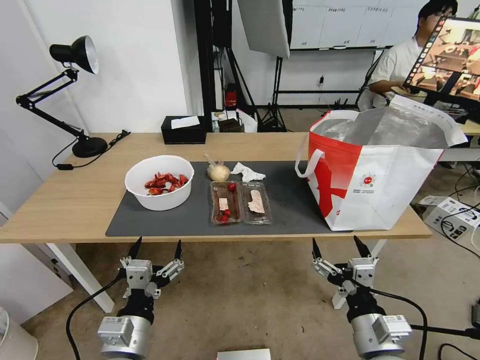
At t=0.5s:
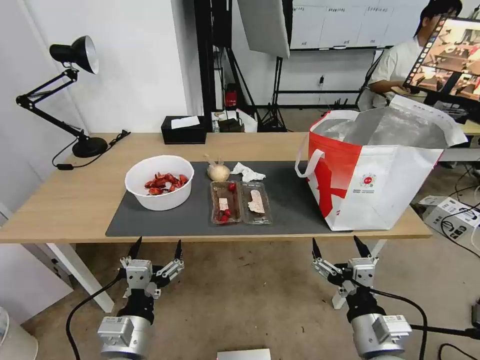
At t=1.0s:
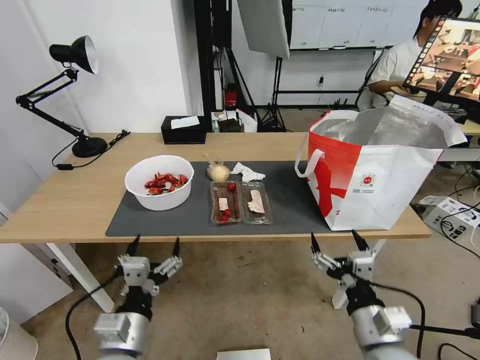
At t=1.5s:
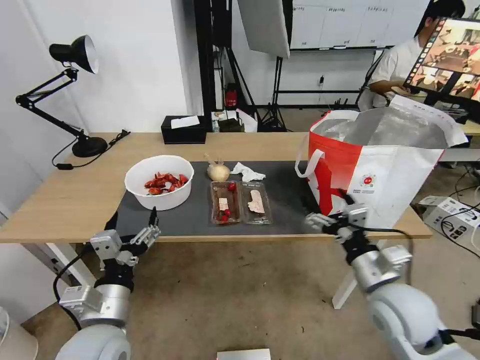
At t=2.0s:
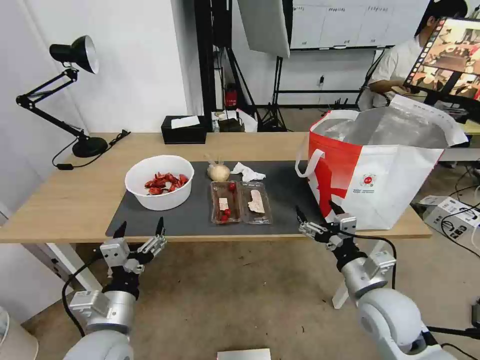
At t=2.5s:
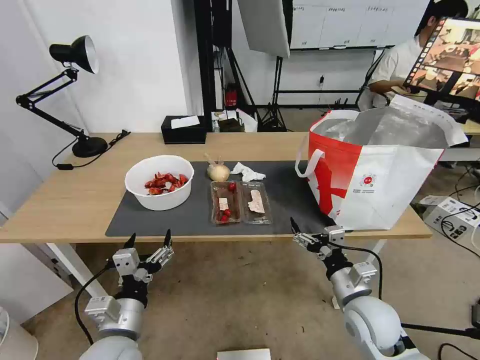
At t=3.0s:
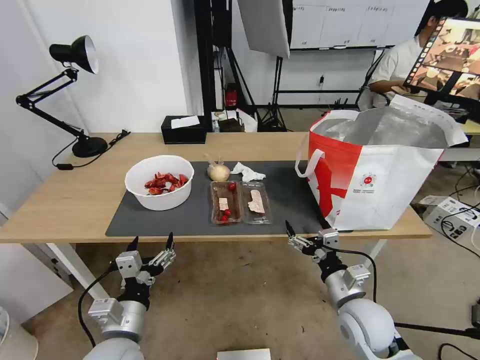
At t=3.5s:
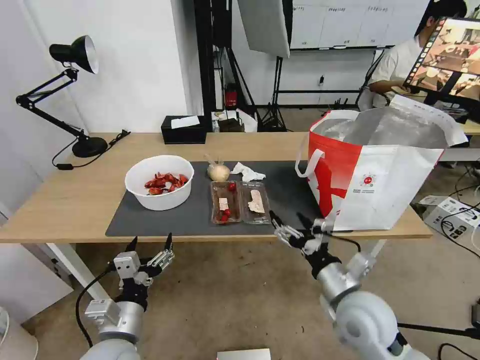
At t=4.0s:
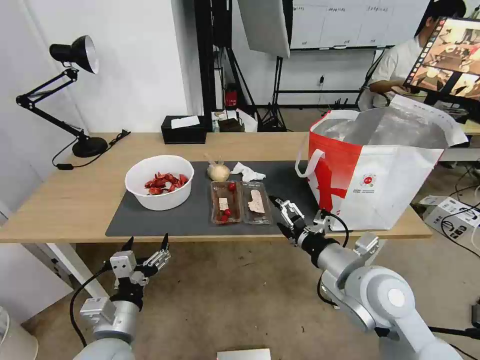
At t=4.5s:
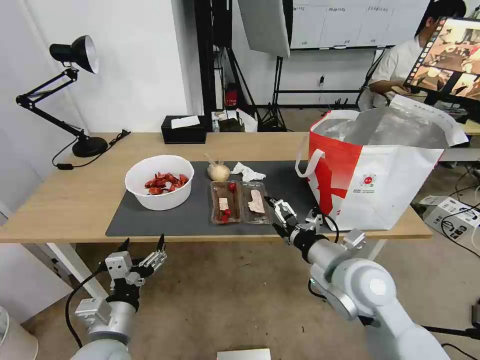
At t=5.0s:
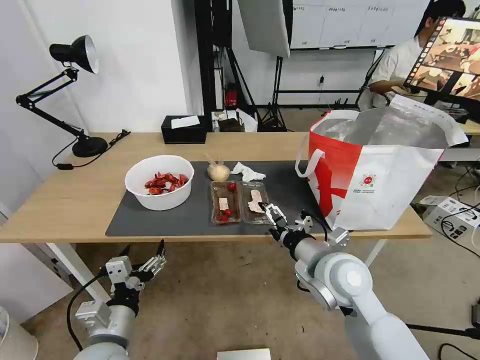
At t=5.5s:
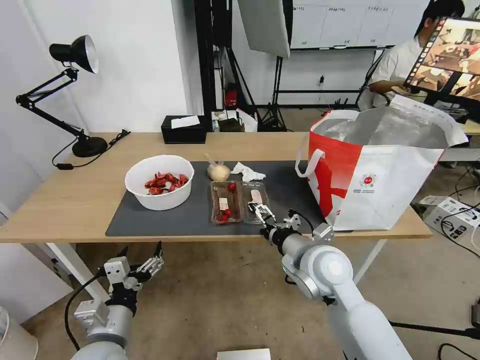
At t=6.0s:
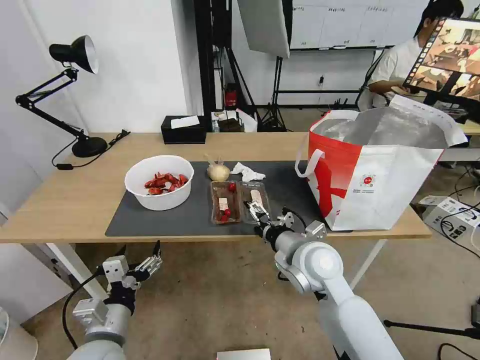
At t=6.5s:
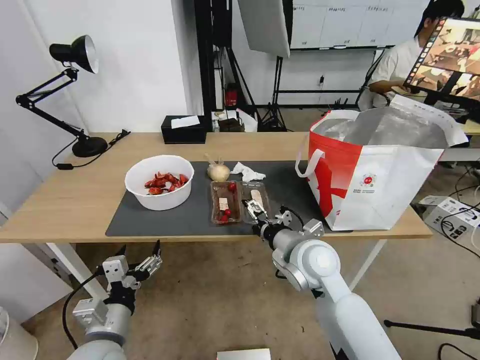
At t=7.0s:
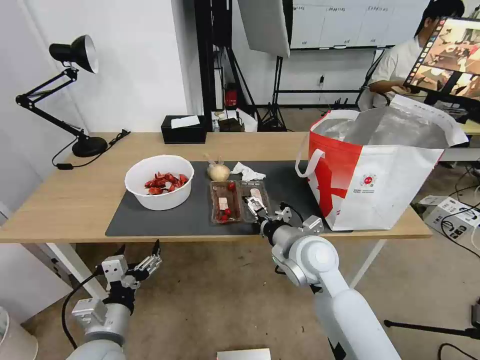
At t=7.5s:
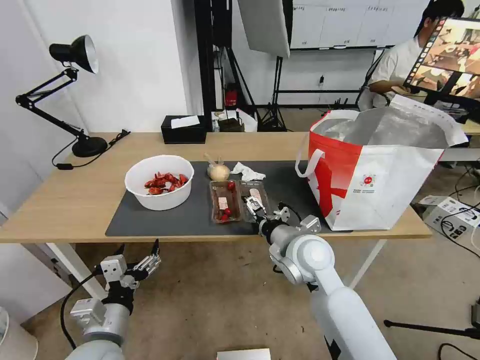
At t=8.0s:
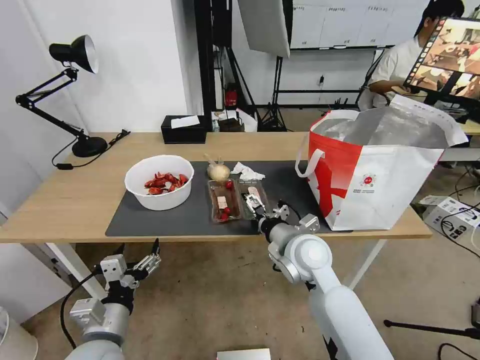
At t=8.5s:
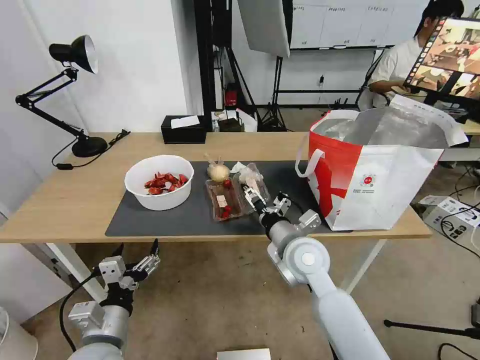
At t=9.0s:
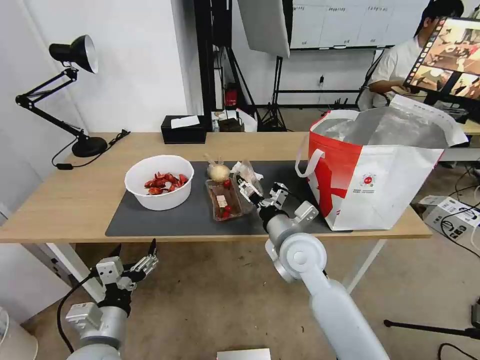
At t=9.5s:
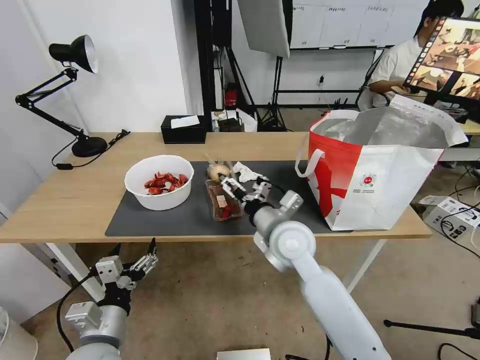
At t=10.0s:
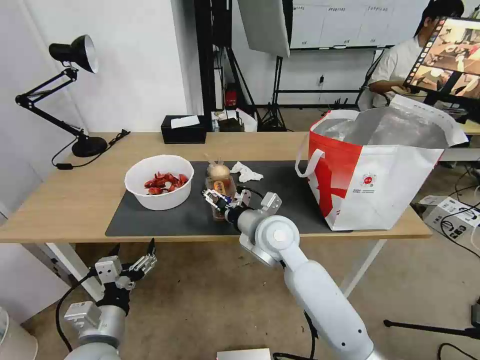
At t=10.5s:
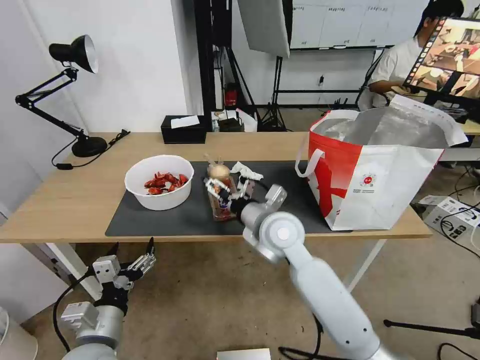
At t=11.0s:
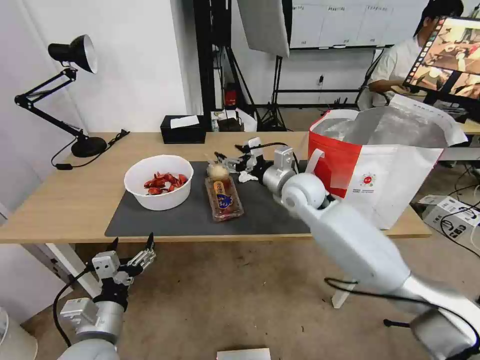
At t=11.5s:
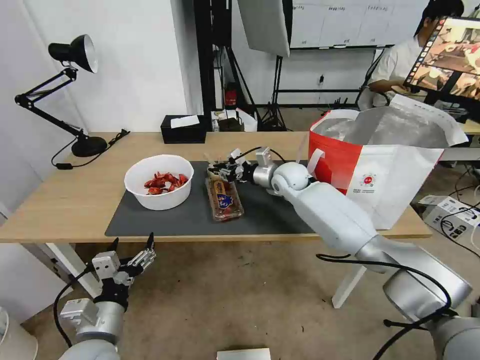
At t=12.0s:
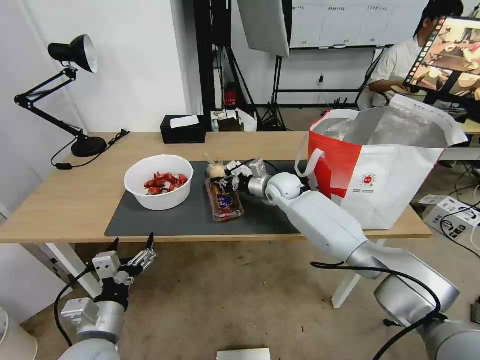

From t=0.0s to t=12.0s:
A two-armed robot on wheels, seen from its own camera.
Task of the whole recording: Pick up the trash from the table and place it into the takeout bag.
From t=2.0s to t=4.0s: The right gripper is displaced upward by approximately 10 cm.
From t=4.0s to t=6.0s: The right gripper travels to the left and forward by some 10 cm.
From t=6.0s to t=8.0s: There are only small adjustments of the grippers.
From t=8.0s to t=10.0s: The right gripper travels to the left by roughly 5 cm.
From t=10.0s to t=12.0s: The right gripper shifts about 20 cm forward, and closes up.

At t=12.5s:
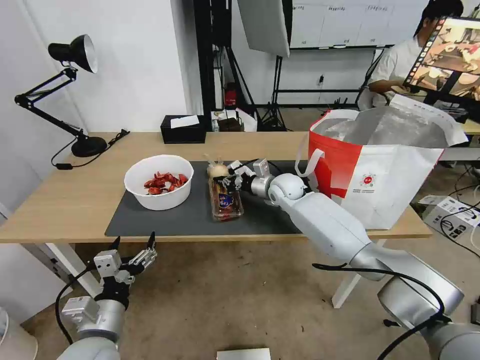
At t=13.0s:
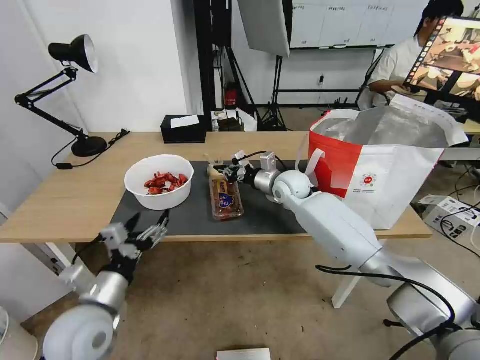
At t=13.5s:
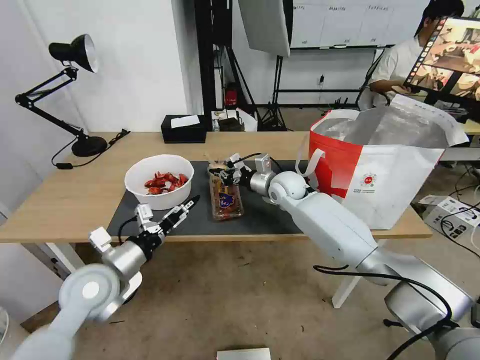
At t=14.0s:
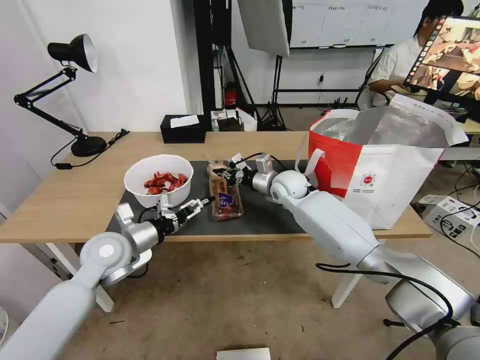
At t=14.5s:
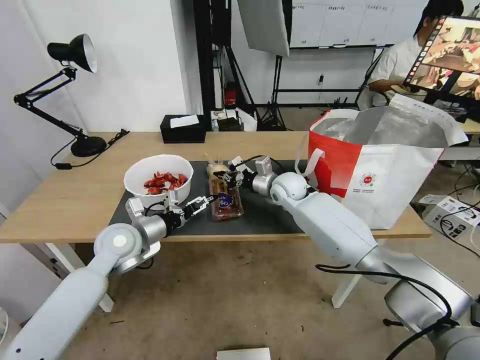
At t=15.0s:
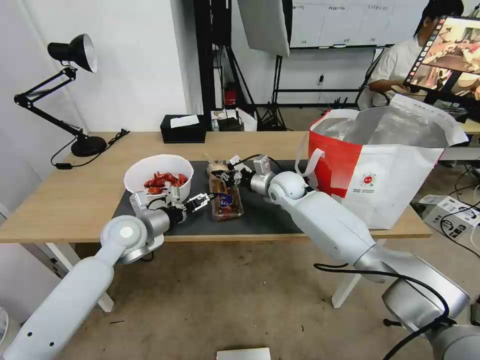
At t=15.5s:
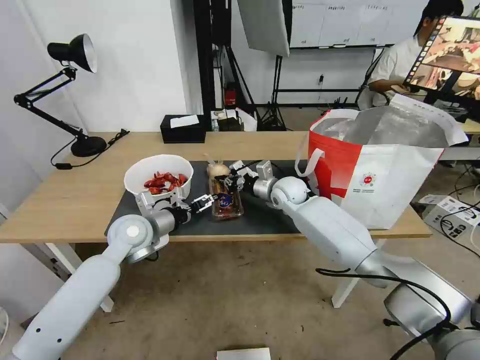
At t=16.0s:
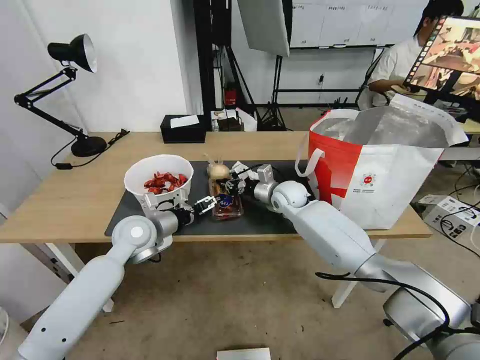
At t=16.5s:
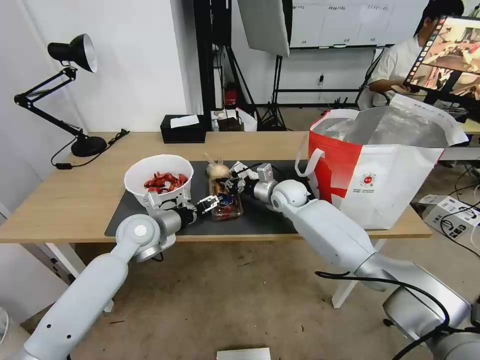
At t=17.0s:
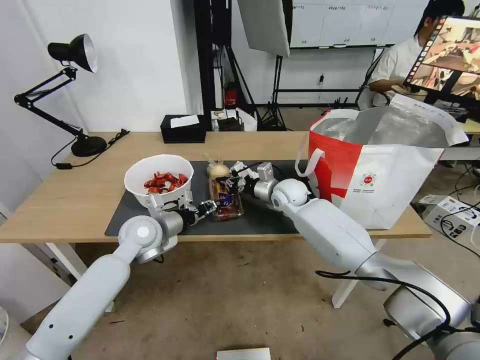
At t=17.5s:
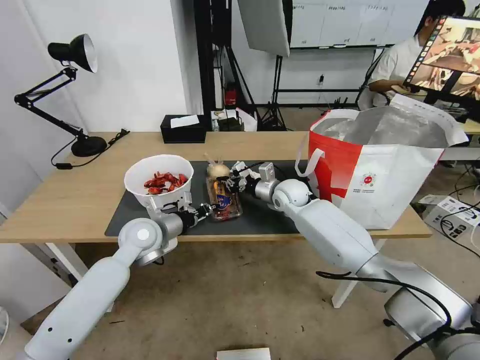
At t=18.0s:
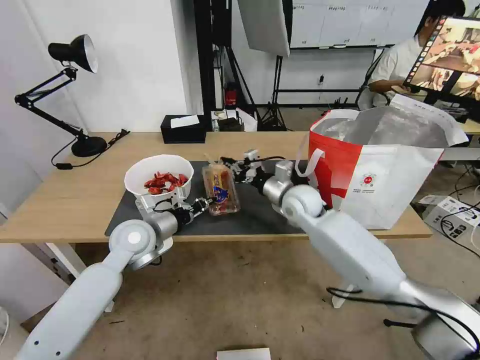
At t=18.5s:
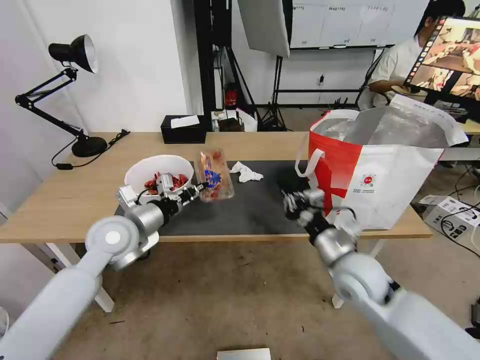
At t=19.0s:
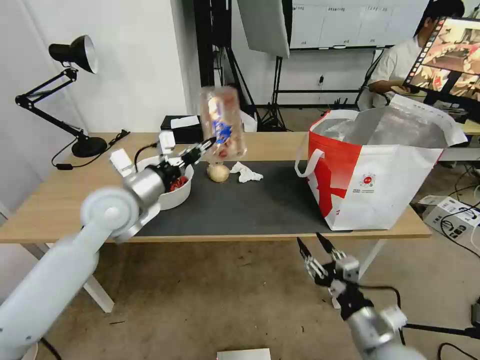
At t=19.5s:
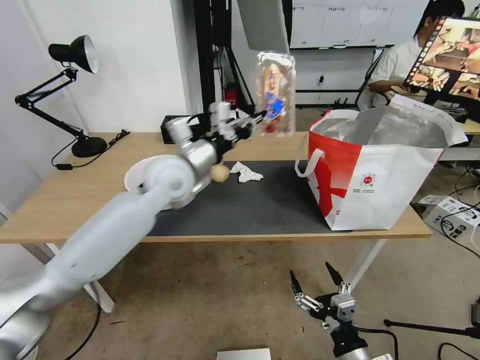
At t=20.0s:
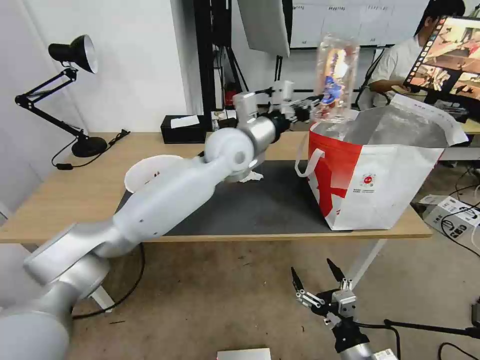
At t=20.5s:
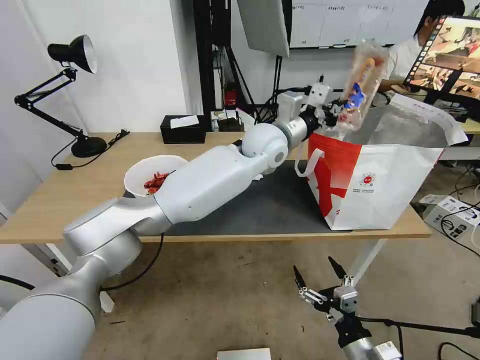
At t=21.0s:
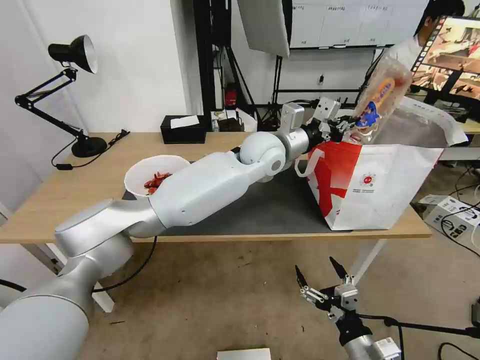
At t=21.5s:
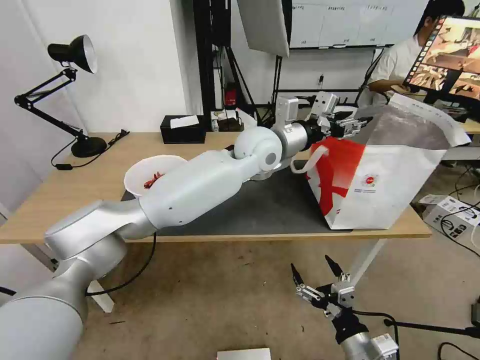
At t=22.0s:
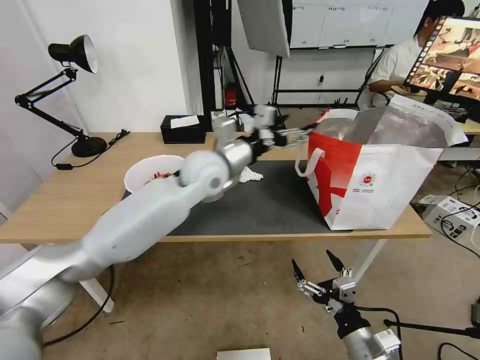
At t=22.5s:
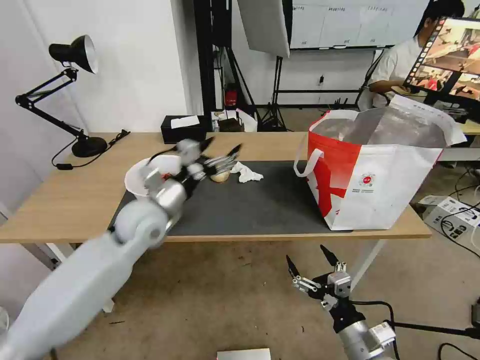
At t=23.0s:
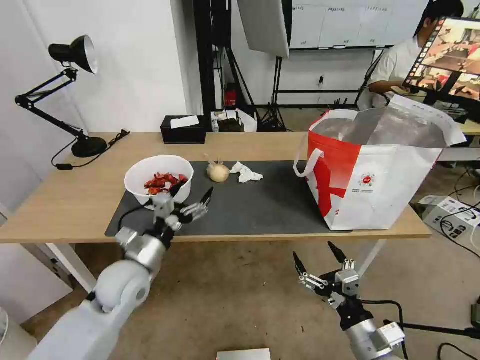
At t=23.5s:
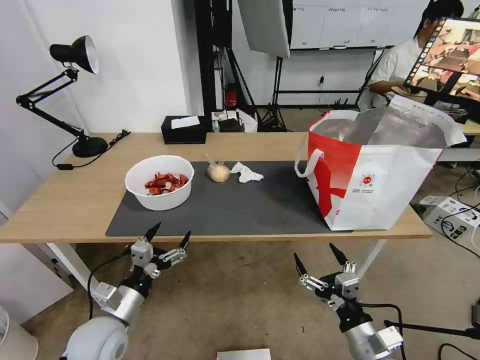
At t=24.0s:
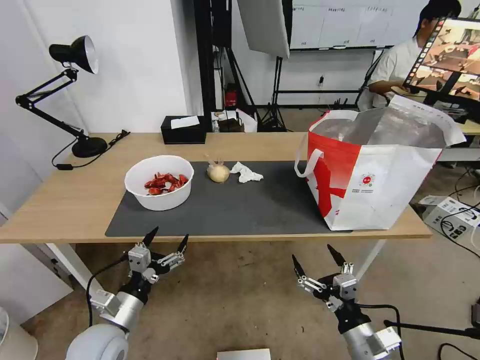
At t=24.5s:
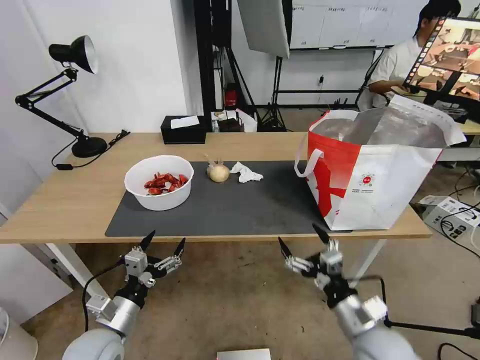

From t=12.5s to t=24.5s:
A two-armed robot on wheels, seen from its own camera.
Task of the whole recording: Pick up the trash from the table and place it into the takeout bag.
From t=12.5s to t=14.5s: The left gripper travels forward by roughly 20 cm.
From t=14.5s to t=16.5s: The grippers move only a little.
From t=16.5s to t=18.5s: The right gripper is displaced backward by approximately 25 cm. The left gripper heads upward, covering roughly 5 cm, and closes up.
From t=18.5s to t=20.5s: The right gripper moves backward and downward, about 20 cm, and opens up. Meanwhile the left gripper heads to the right and forward, covering some 35 cm.
From t=20.5s to t=22.5s: The left gripper heads to the left, backward and downward, covering about 30 cm, and opens.
From t=22.5s to t=24.5s: The left gripper travels backward and downward by approximately 25 cm.

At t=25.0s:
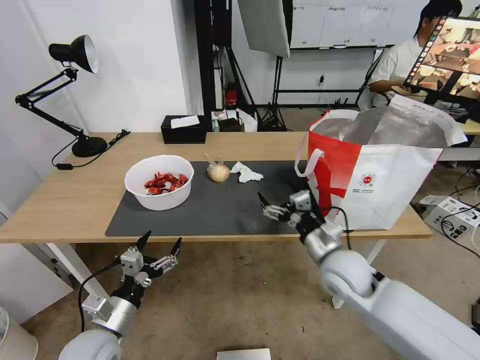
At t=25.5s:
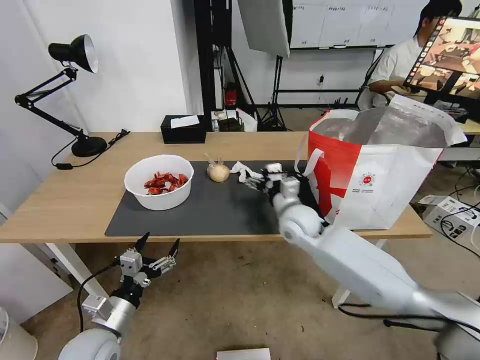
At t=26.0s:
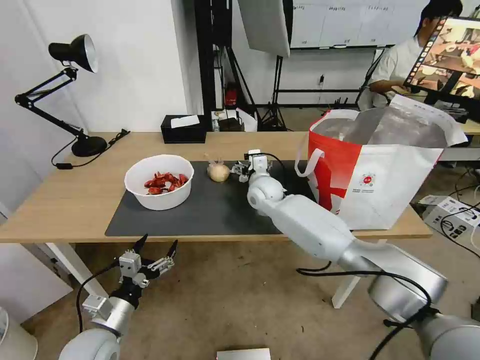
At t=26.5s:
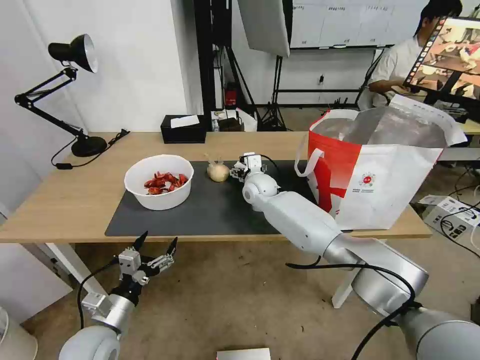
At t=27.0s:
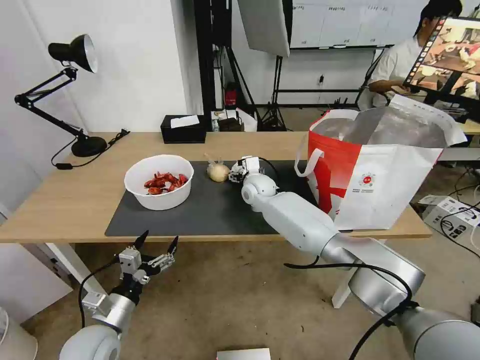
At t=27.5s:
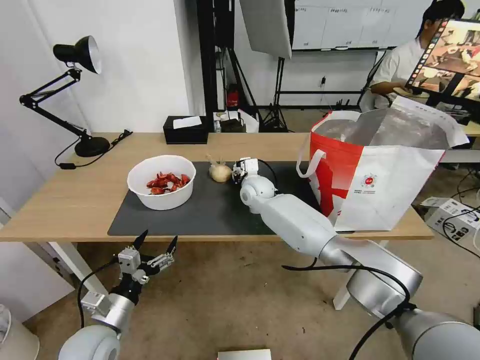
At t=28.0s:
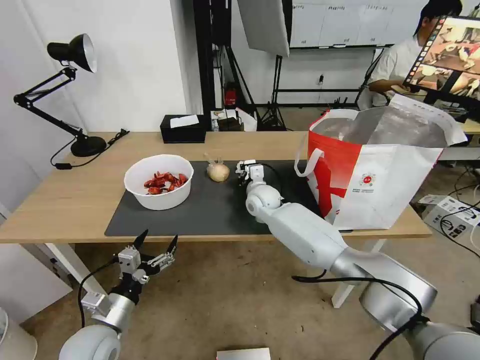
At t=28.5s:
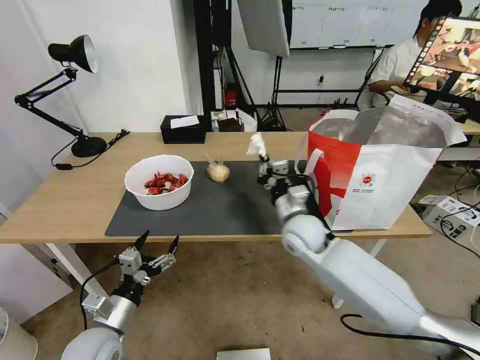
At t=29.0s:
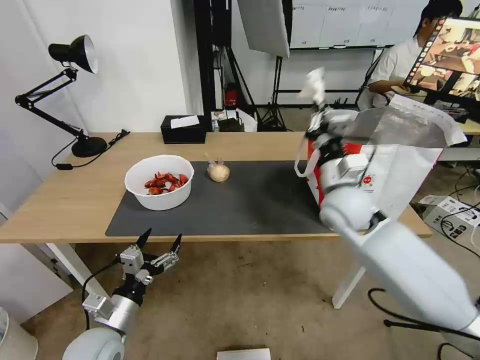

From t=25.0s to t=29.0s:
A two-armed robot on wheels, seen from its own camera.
Task of the whole recording: Pick up the trash from the table and place it into the takeout bag.
From t=25.0s to t=27.0s: The right gripper goes approximately 30 cm forward and to the left.
From t=27.0s to t=29.0s: The right gripper moves backward, to the right and upward, about 25 cm, and closes up.
